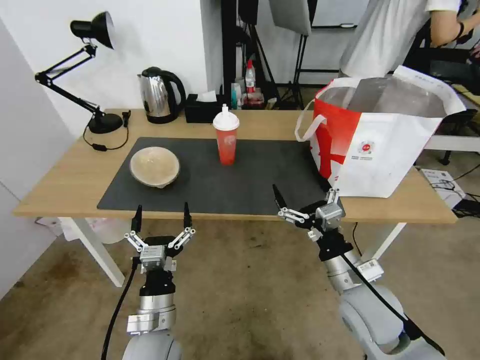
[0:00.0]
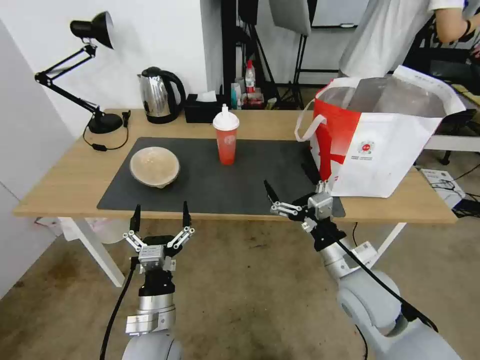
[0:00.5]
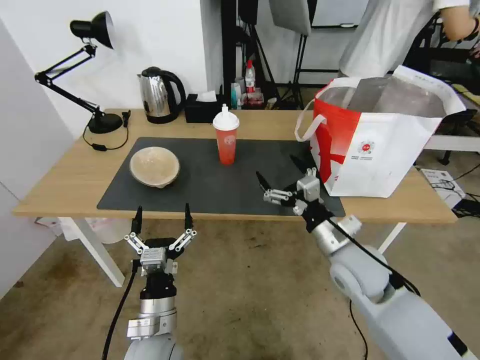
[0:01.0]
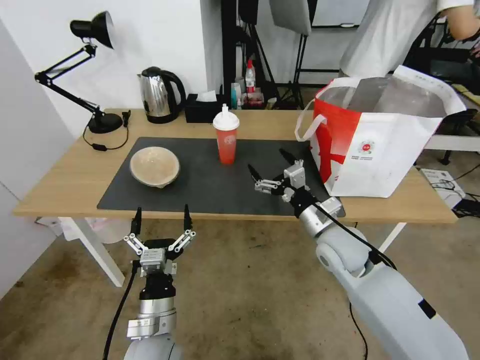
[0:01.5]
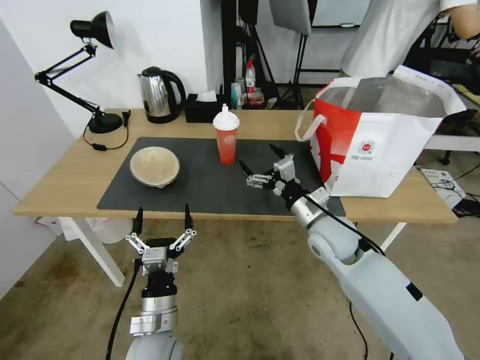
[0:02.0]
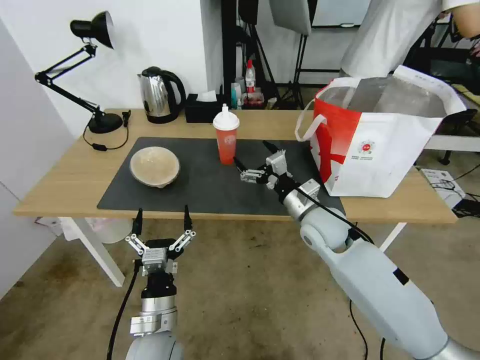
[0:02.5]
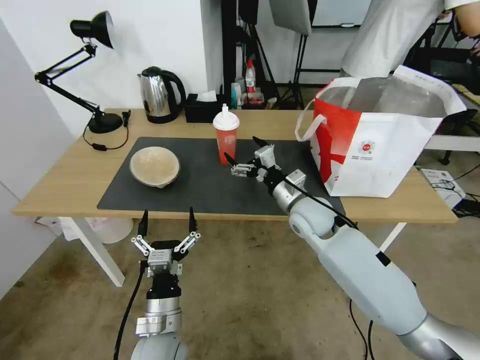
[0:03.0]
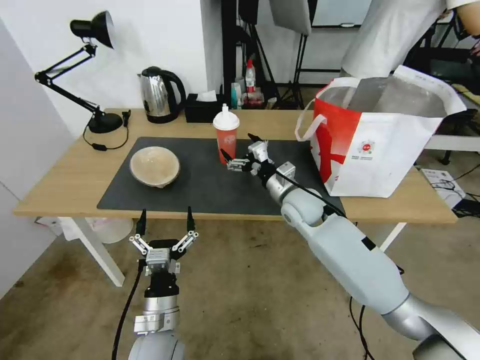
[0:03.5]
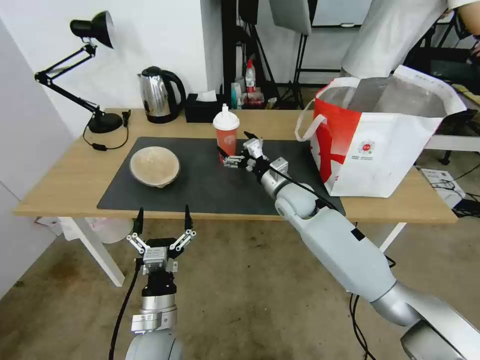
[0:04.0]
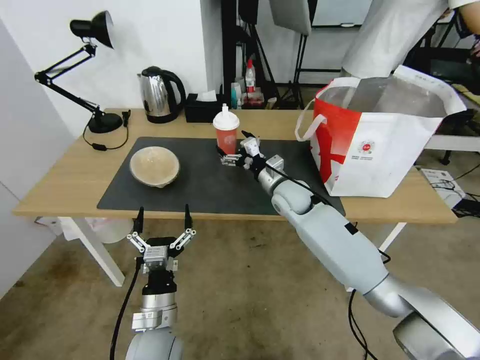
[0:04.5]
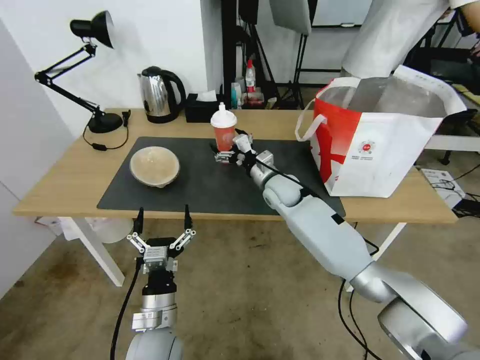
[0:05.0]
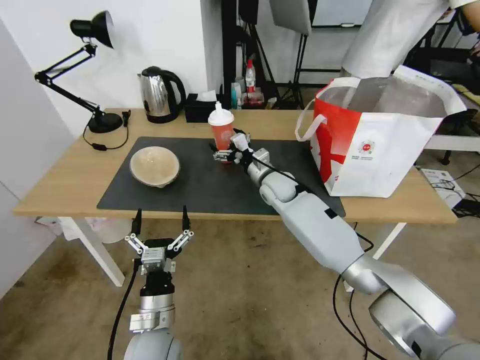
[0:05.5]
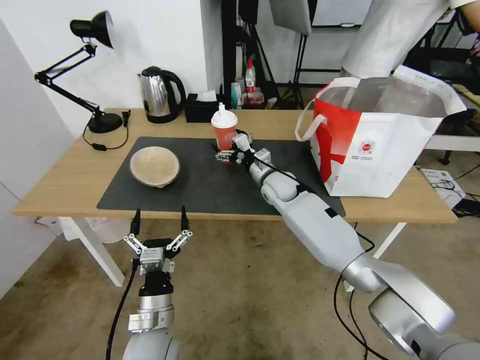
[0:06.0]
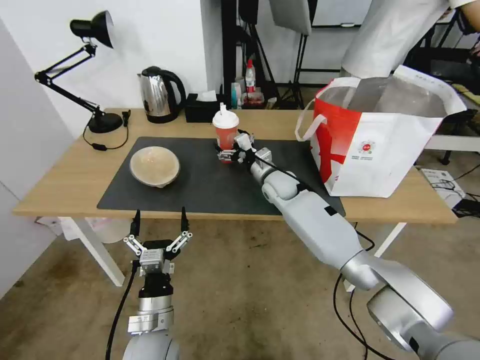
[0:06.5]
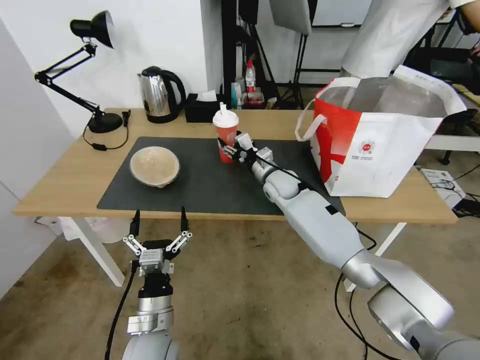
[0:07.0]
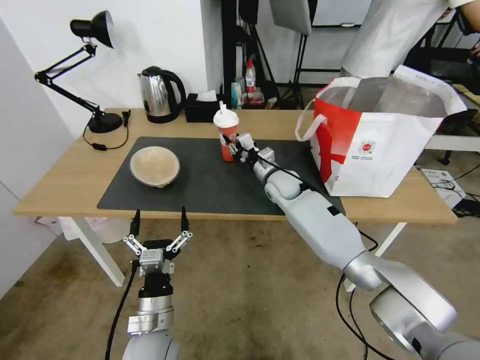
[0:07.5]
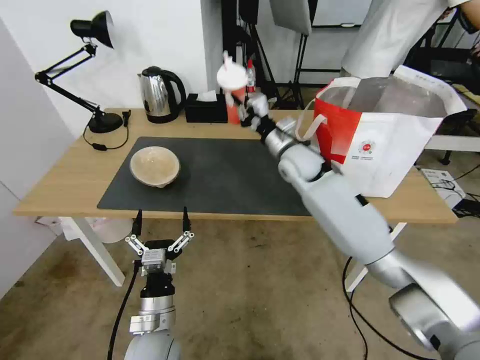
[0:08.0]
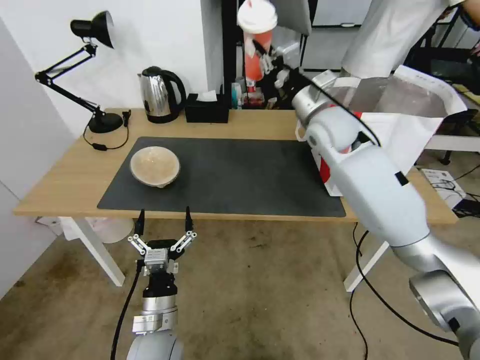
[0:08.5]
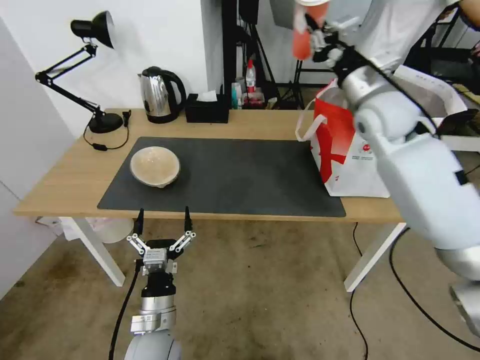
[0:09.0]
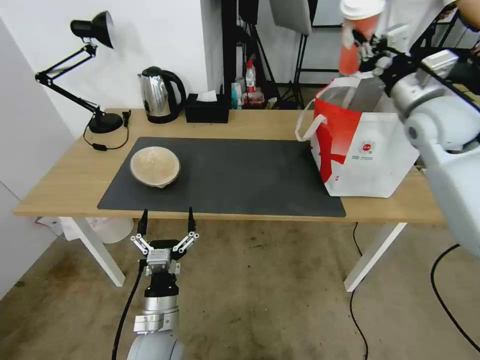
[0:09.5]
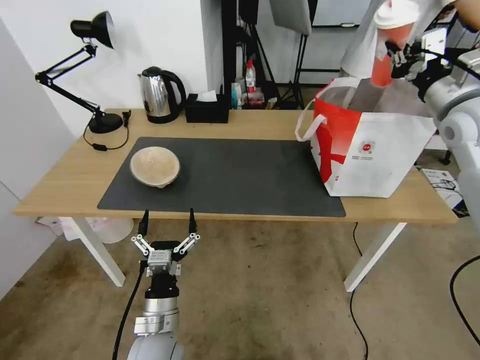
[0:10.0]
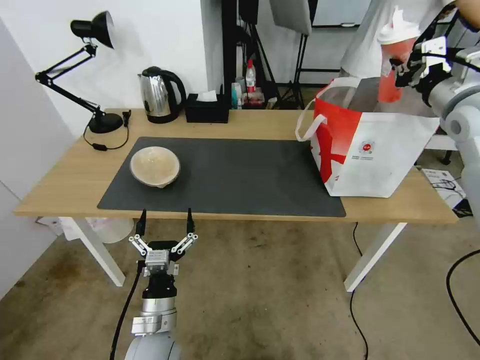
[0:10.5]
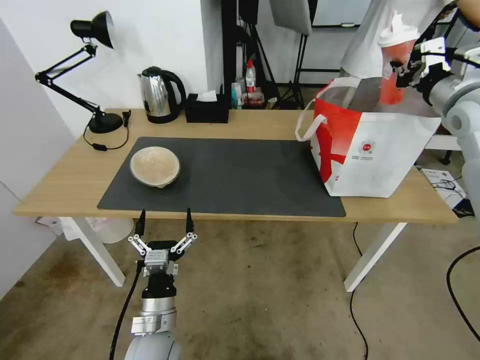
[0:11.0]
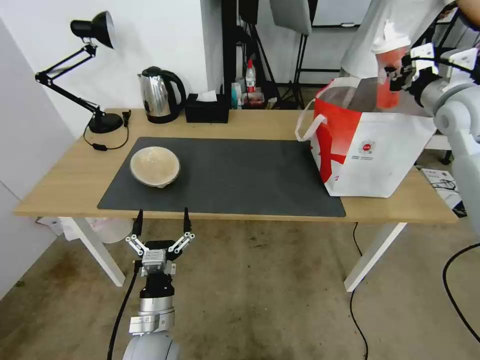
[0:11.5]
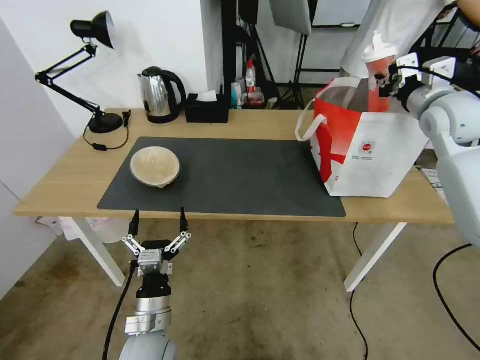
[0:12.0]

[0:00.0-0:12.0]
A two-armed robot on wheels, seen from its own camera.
Task of the whole recording: Pick up the trash from the table and place it into the takeout bag.
0.0 to 2.0 s: The right gripper travels forward by some 15 cm.
2.0 to 4.0 s: The right gripper travels forward and to the left by some 10 cm.
4.0 to 6.0 s: The right gripper is displaced forward by about 5 cm.
6.0 to 8.0 s: The right gripper moves upward, roughly 10 cm, and closes.
8.0 to 10.0 s: The right gripper goes about 30 cm to the right and upward.
10.0 to 12.0 s: The grippers make only small movements.

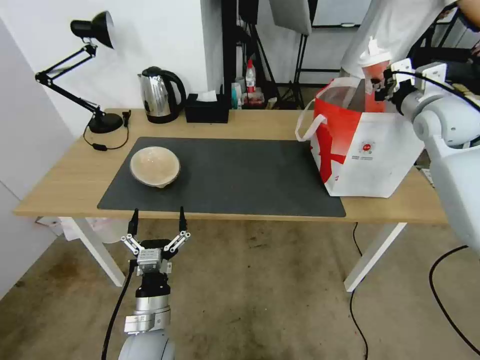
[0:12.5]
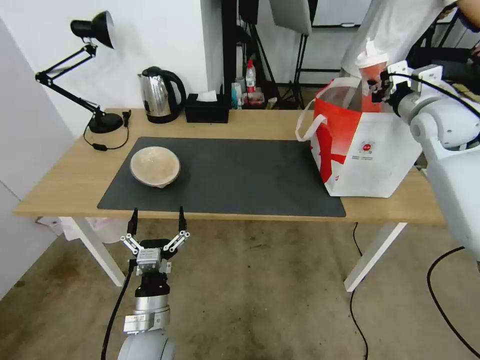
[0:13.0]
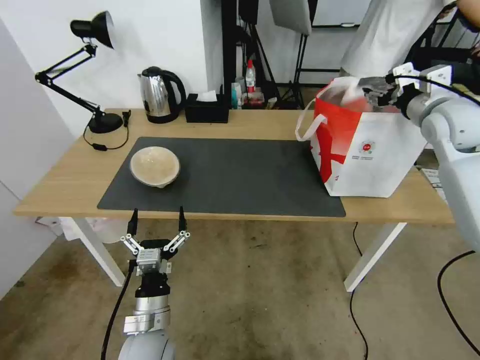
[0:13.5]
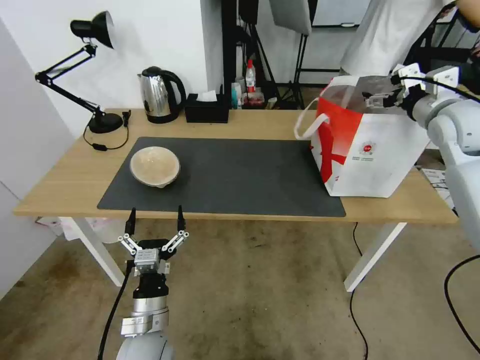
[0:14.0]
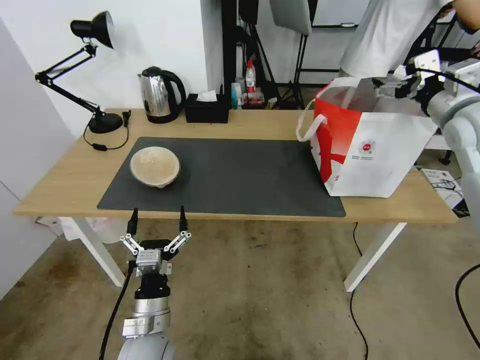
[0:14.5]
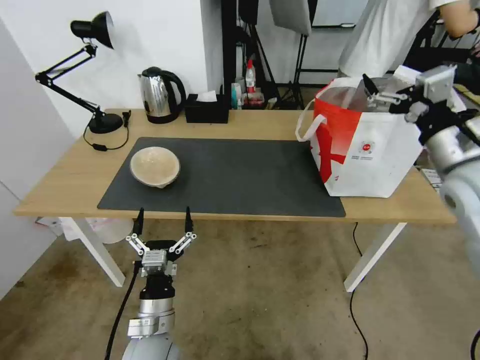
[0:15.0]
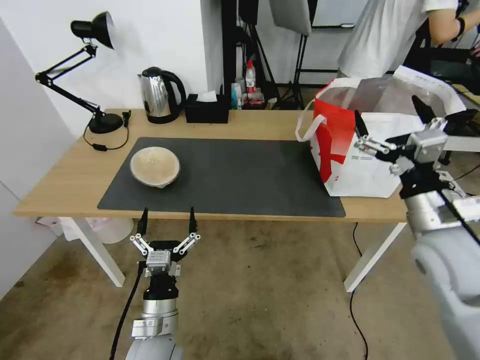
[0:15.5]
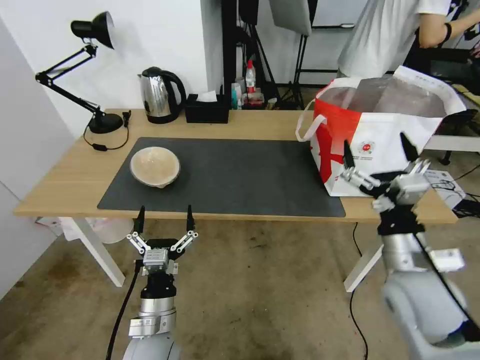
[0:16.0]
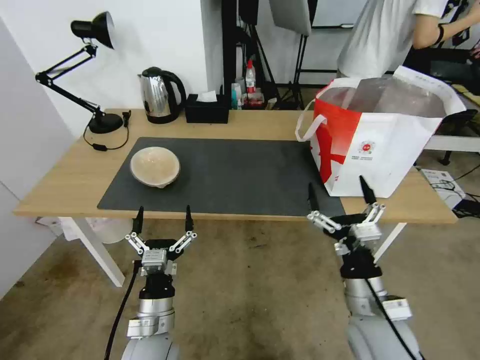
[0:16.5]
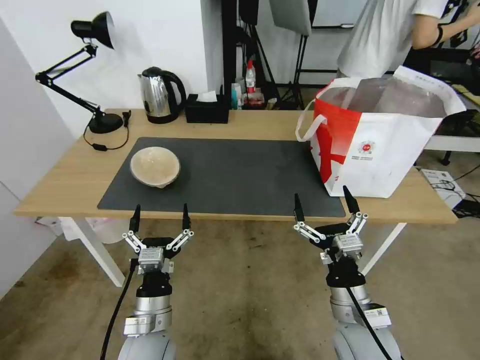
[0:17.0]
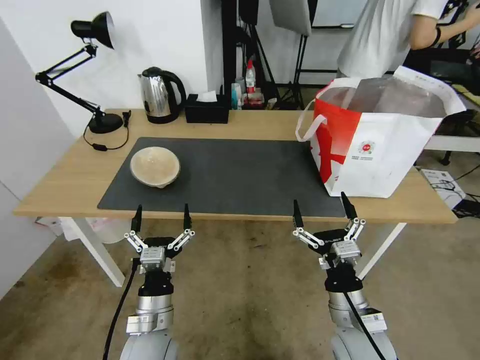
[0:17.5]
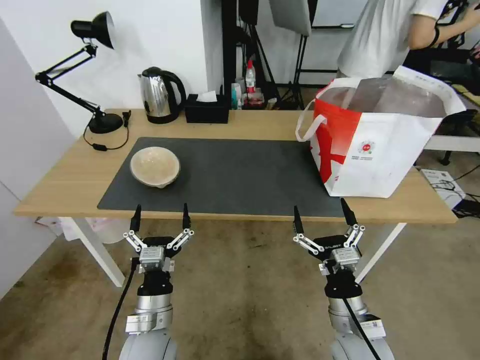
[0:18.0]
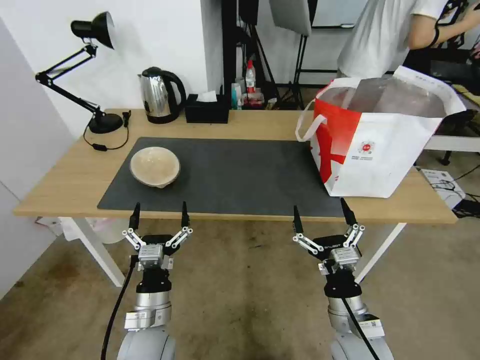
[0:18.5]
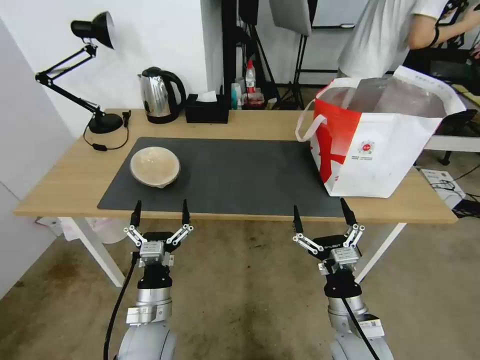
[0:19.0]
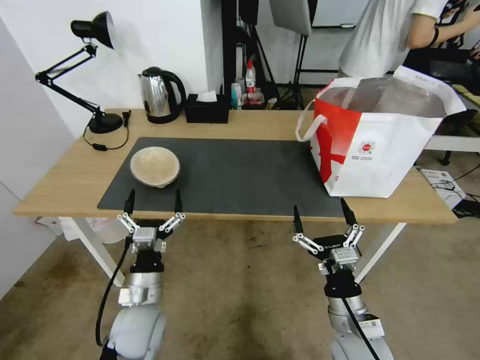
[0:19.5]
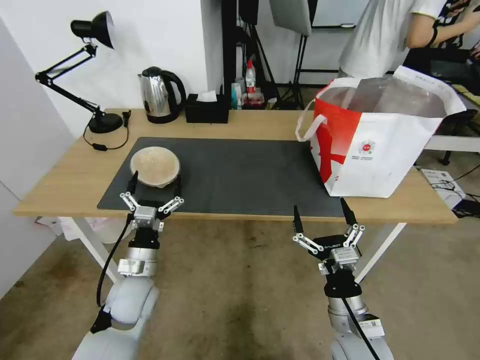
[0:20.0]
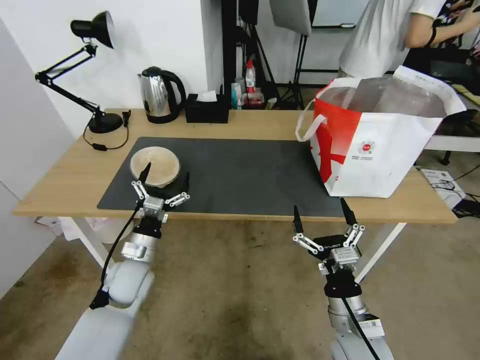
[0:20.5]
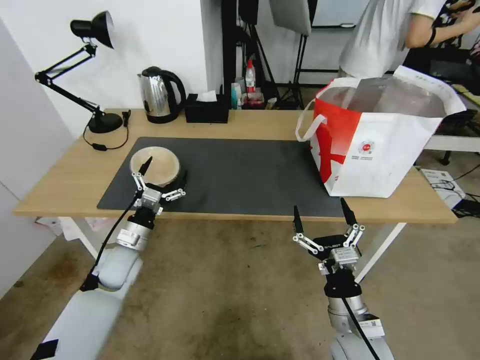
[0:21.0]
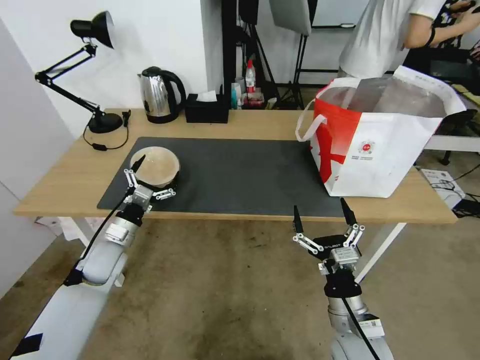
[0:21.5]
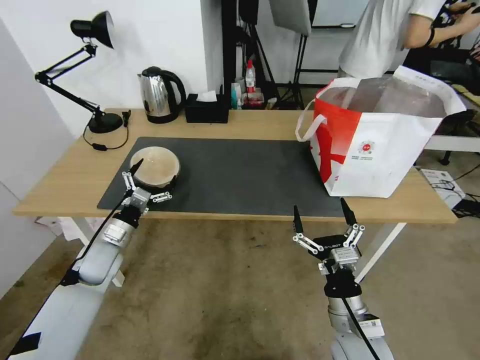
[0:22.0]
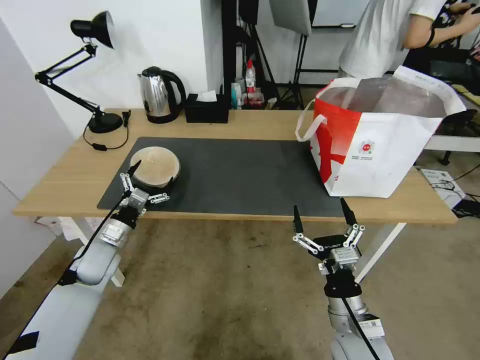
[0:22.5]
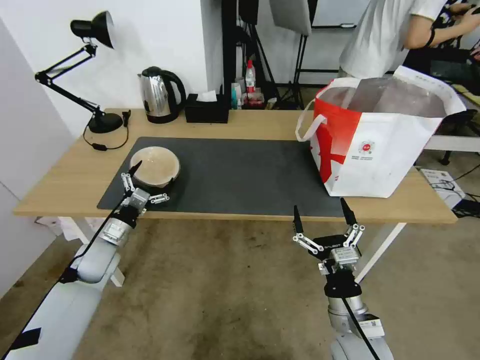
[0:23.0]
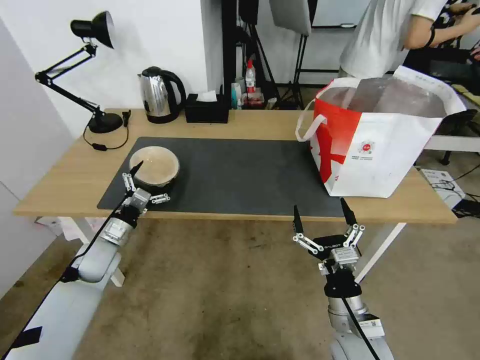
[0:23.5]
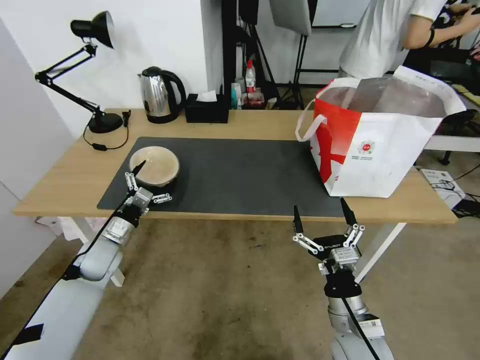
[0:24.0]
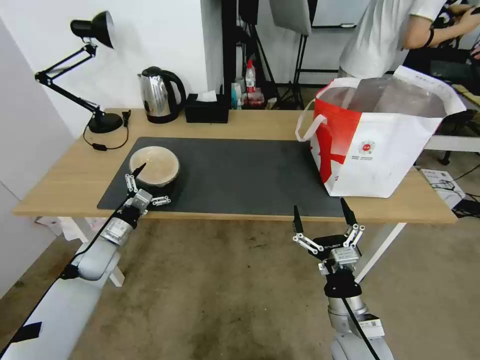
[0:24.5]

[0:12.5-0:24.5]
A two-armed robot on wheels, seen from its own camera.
Task of the whole recording: Pick up the trash from the table and place it into the takeout bag.
12.5 to 14.5 s: The right gripper heads backward, covering some 5 cm, and opens up.
14.5 to 16.5 s: The right gripper shifts some 40 cm downward, backward and to the left.
16.5 to 18.5 s: The right gripper heads downward, covering roughly 5 cm.
18.5 to 20.5 s: The left gripper is displaced forward and to the left by some 15 cm.
20.5 to 22.5 s: The left gripper moves to the left, some 10 cm.
22.5 to 24.5 s: There are only small adjustments of the grippers.

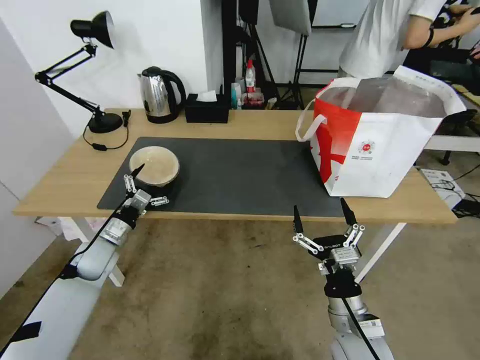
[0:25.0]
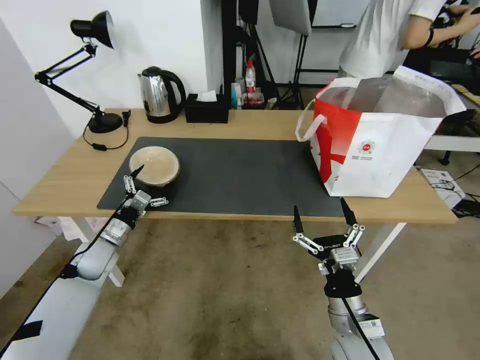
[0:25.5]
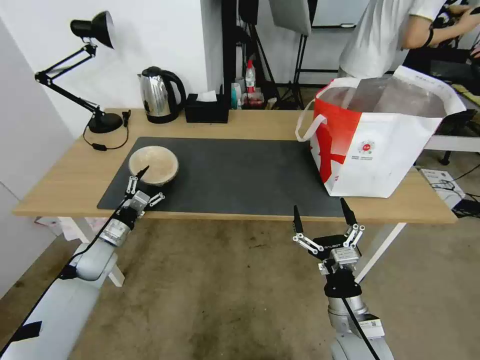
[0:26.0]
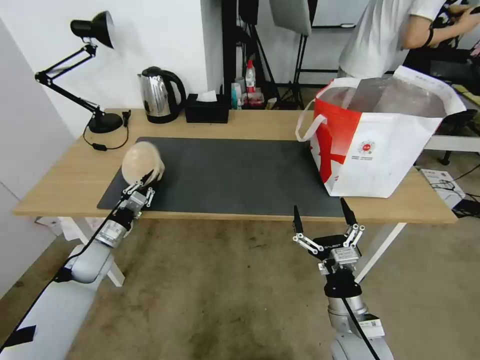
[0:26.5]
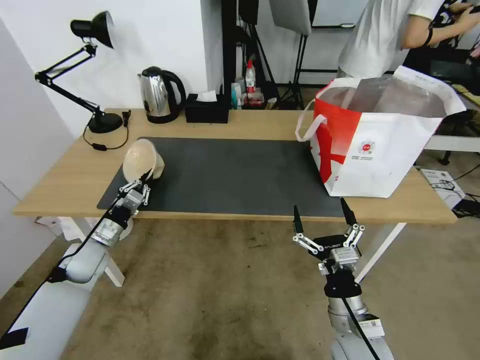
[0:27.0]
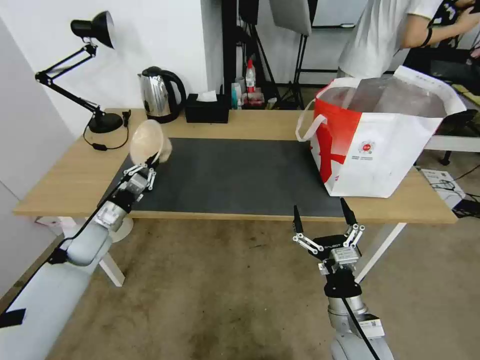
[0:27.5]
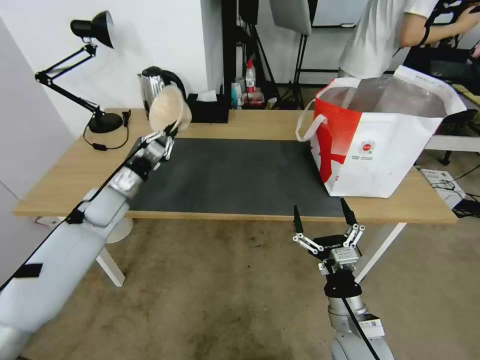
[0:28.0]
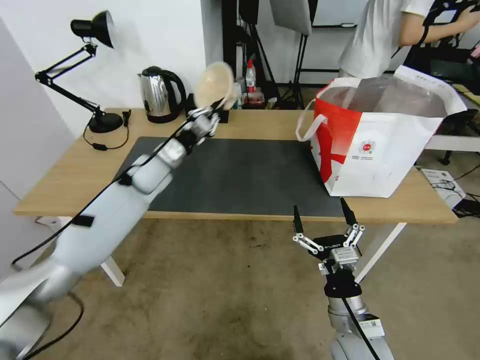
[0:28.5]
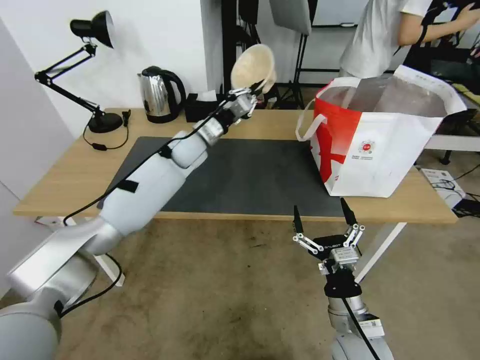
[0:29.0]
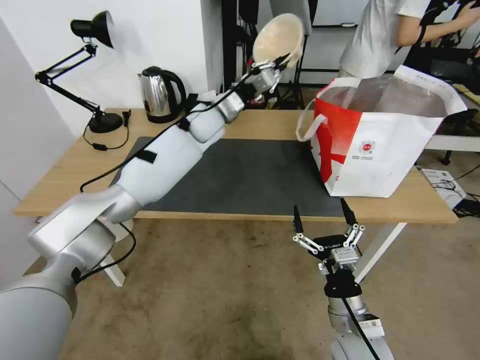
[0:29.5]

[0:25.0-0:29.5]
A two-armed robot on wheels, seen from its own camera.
Task of the whole recording: Pick up the trash from the table and place it into the takeout bag.
25.0 to 27.0 s: The left gripper closes.
27.0 to 29.5 s: The left gripper heads to the right, forward and upward, covering some 40 cm.
